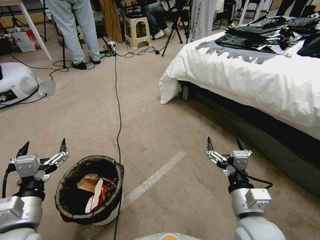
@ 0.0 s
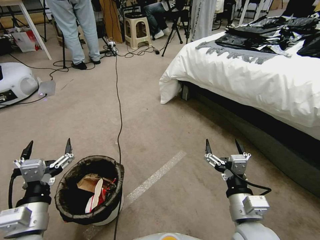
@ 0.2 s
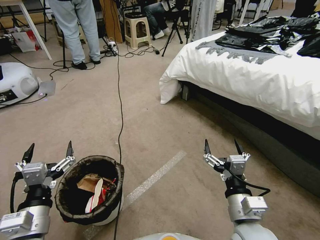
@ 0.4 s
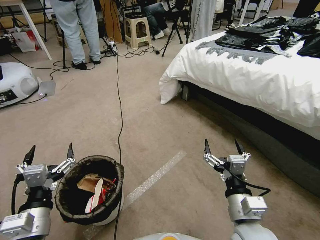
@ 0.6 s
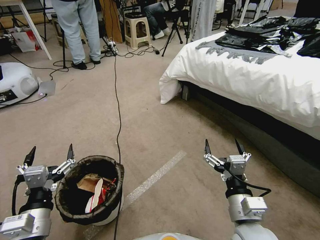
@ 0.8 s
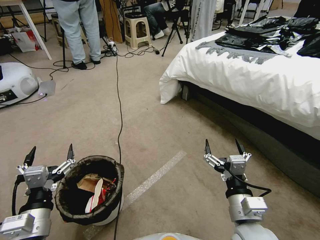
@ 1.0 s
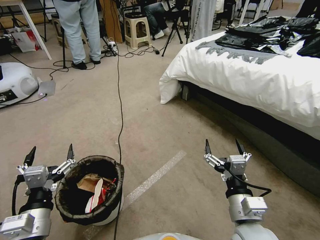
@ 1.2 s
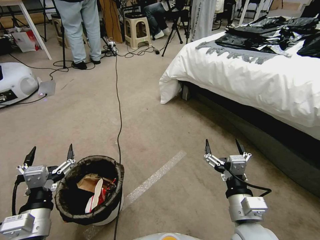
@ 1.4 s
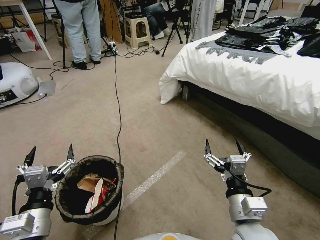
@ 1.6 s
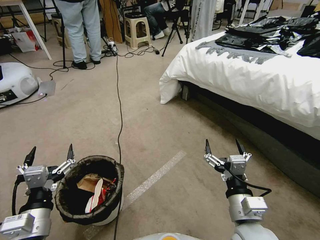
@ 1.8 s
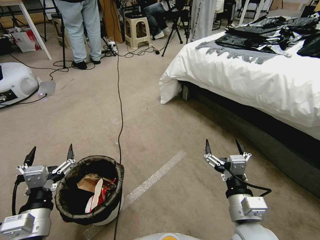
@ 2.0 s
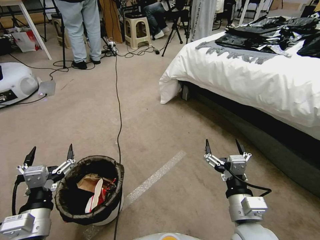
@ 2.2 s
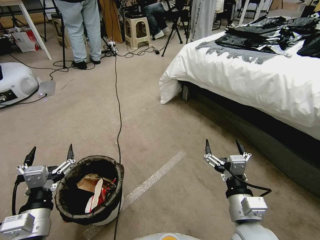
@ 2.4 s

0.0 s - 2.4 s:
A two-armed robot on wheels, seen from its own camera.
Task of the whole recording: Pick up the trash bin, then pick up the garbage from the floor and place it into the trash bin.
0.0 s - 1.2 s: The grippers make only small movements.
1.2 s - 2.4 s: Both grippers stay about where they are.
